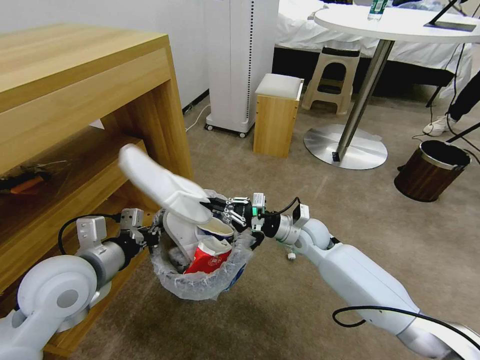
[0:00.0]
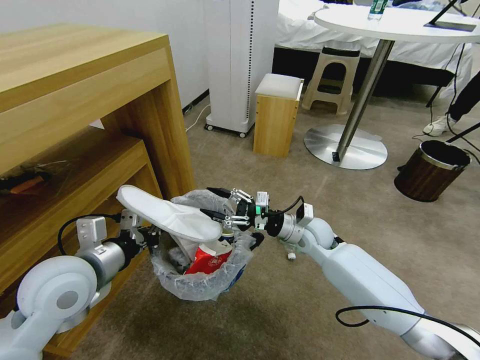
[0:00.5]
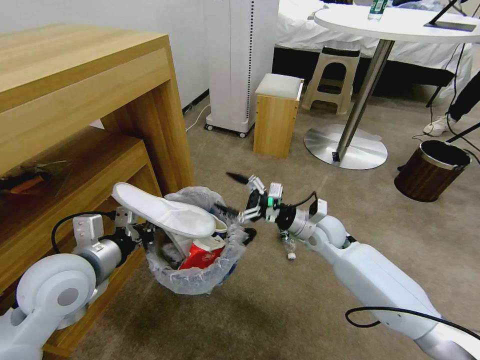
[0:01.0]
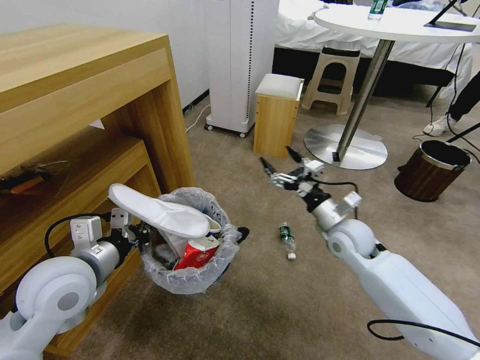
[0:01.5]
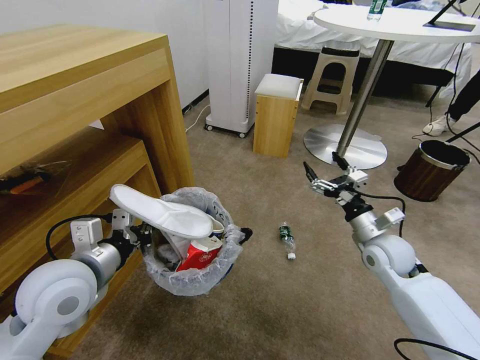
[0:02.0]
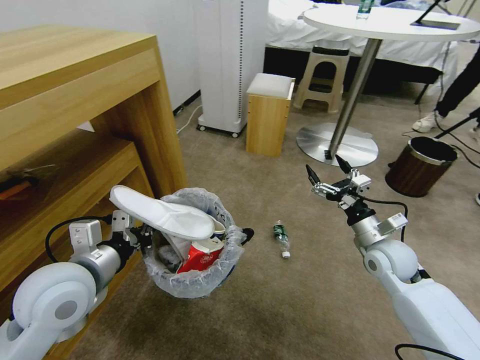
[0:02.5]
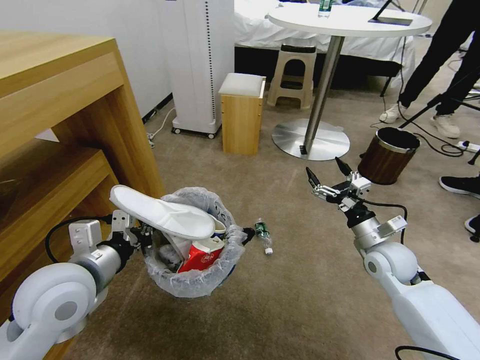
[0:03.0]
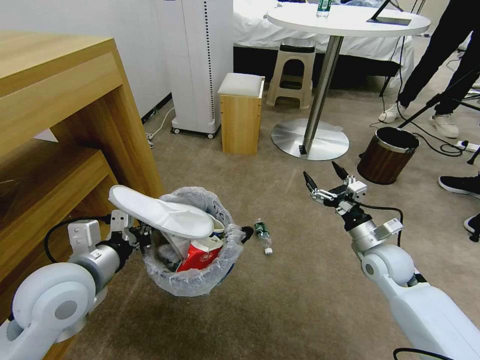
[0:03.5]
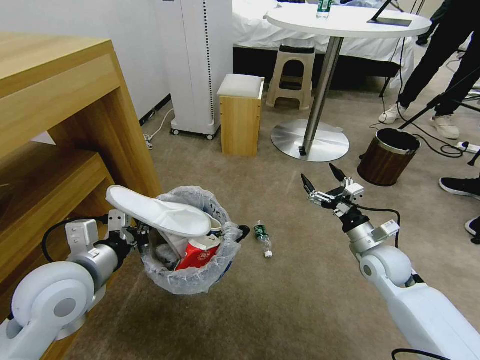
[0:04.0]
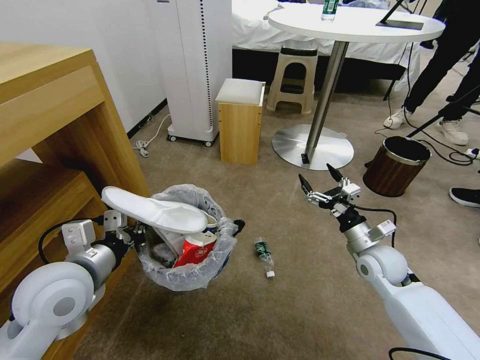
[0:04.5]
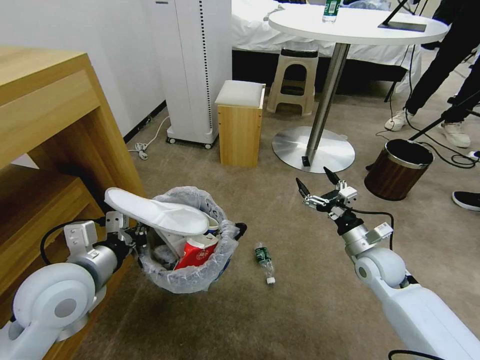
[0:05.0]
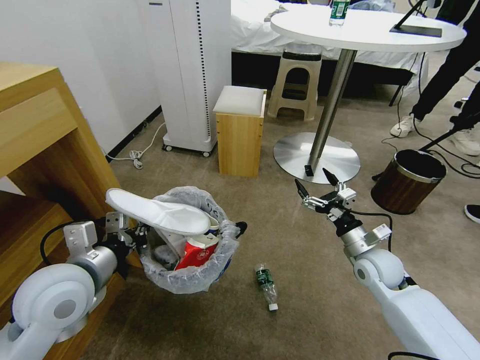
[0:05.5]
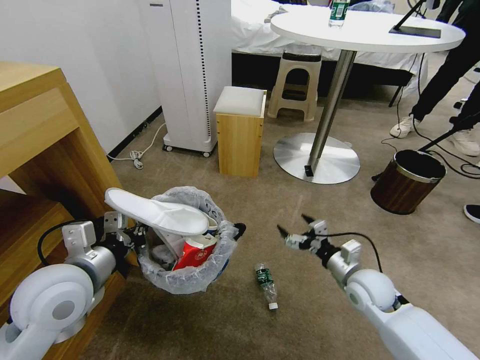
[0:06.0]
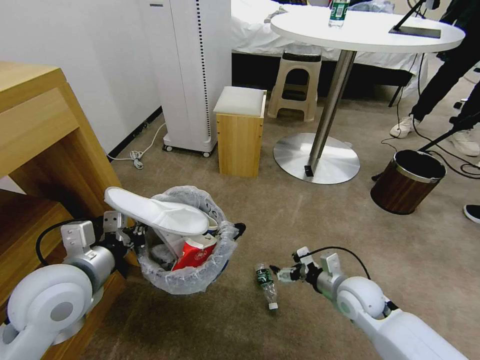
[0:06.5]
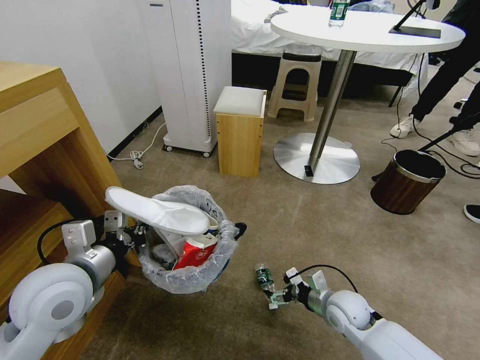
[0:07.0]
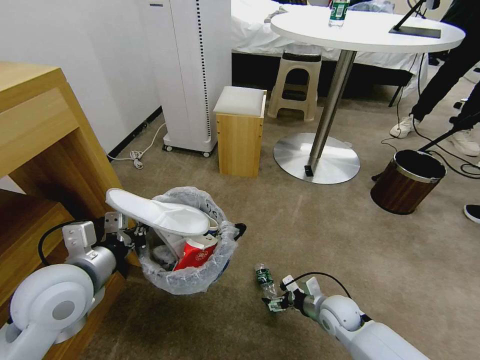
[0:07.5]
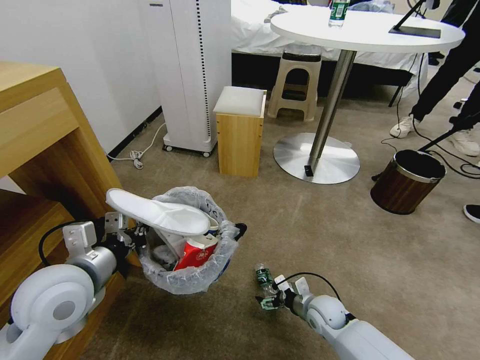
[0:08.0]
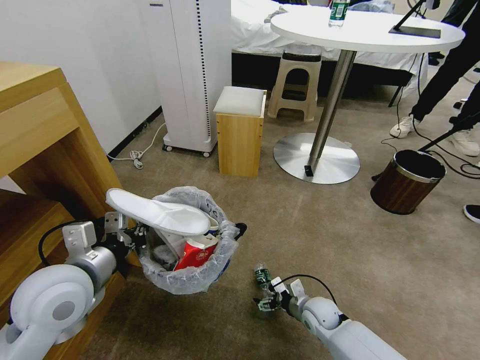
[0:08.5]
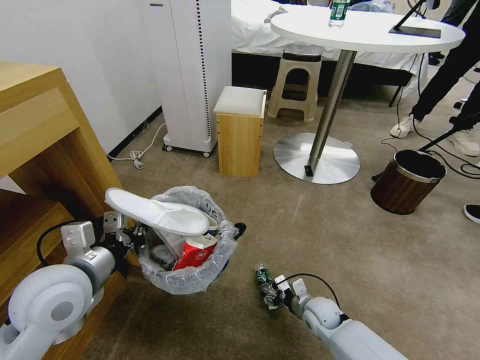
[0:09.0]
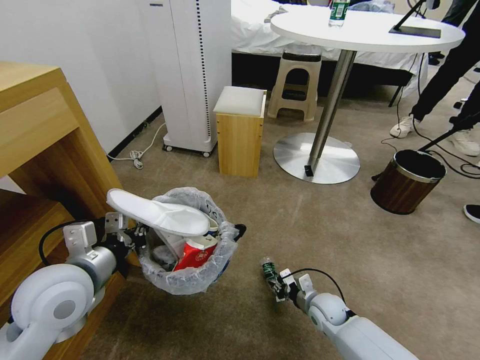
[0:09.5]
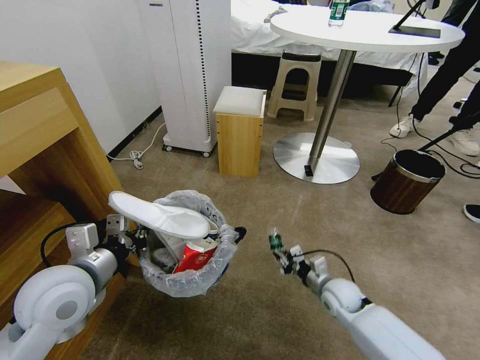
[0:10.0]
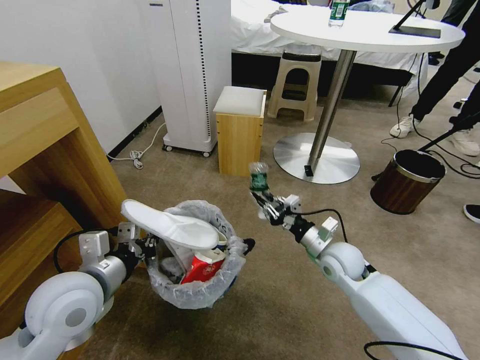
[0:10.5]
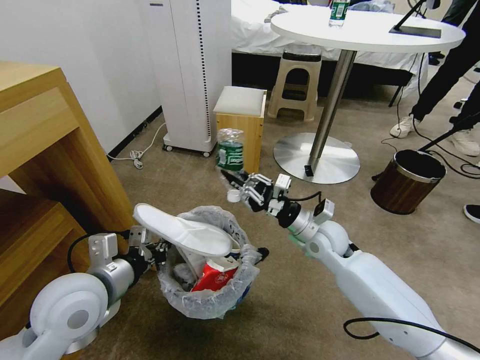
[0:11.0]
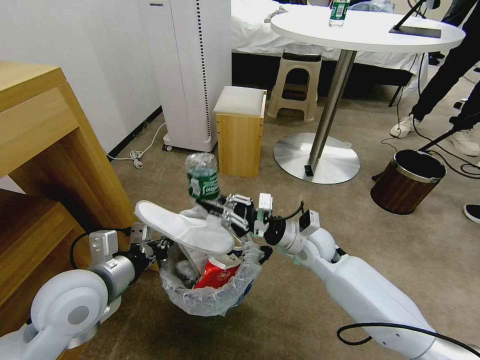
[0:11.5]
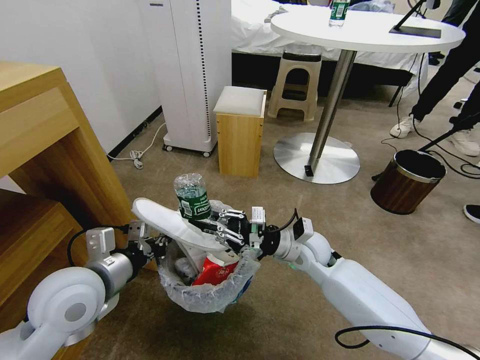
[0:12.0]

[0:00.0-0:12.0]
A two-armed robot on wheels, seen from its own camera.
Task of the whole recording: Pick up the trash bin and place the garbage on the floor into it.
0:00.0 to 0:02.0: The right gripper shifts roughly 15 cm to the right and backward, and opens up.
0:04.0 to 0:06.0: The right gripper ends up roughly 5 cm from where it was.
0:06.0 to 0:08.0: The right gripper heads downward and to the left, covering some 15 cm.
0:08.0 to 0:10.0: The right gripper shifts by approximately 5 cm, and closes.
0:10.0 to 0:12.0: The right gripper is displaced upward and to the left by some 20 cm.

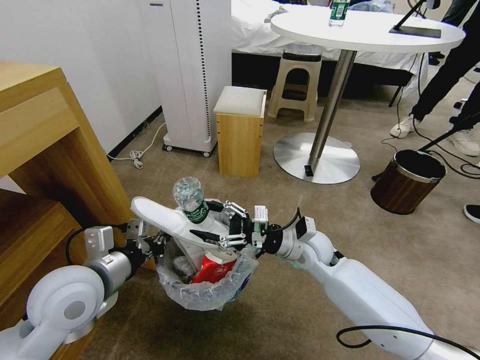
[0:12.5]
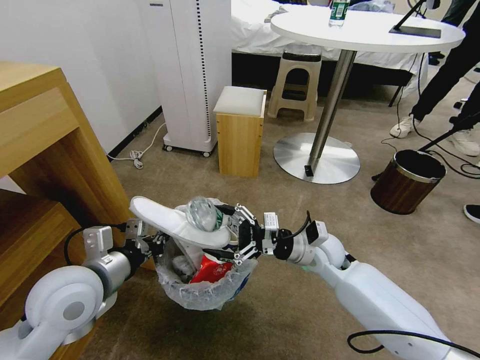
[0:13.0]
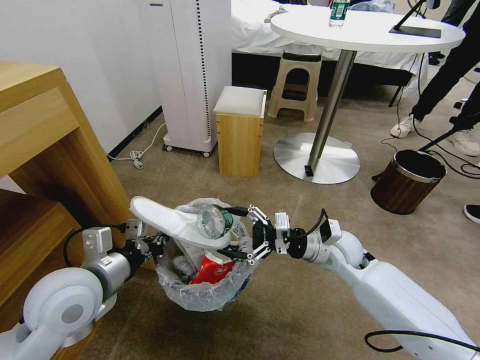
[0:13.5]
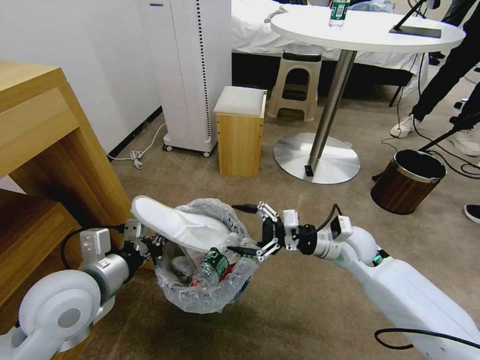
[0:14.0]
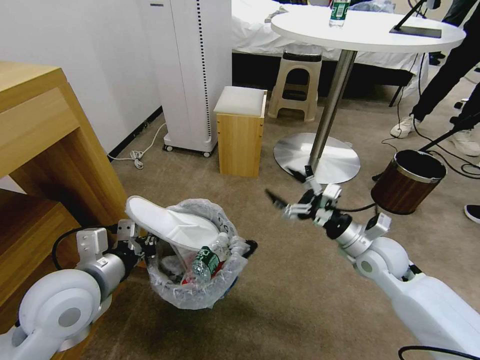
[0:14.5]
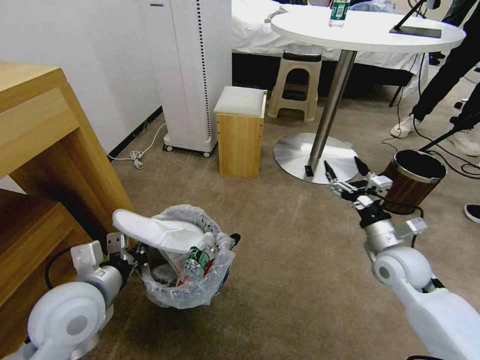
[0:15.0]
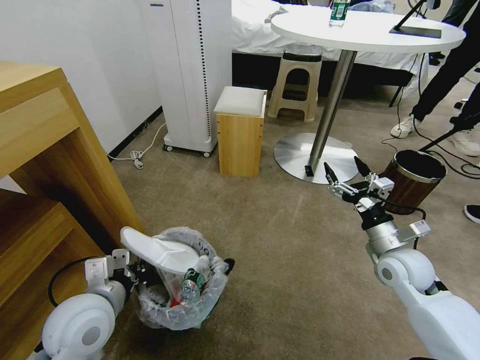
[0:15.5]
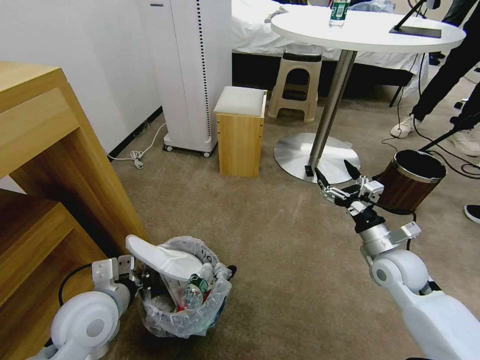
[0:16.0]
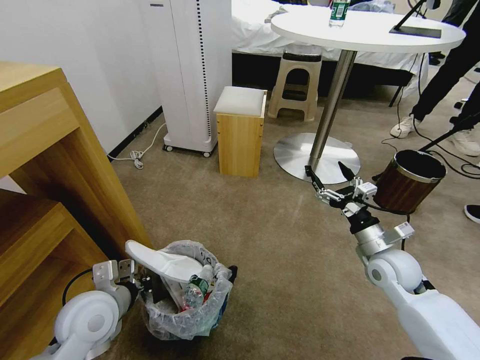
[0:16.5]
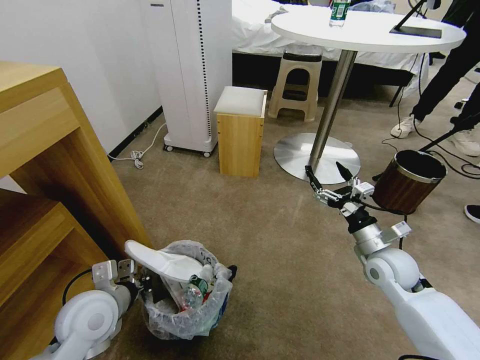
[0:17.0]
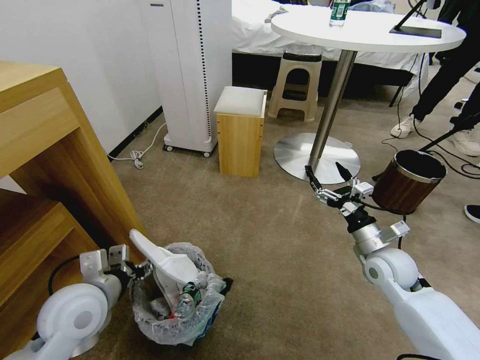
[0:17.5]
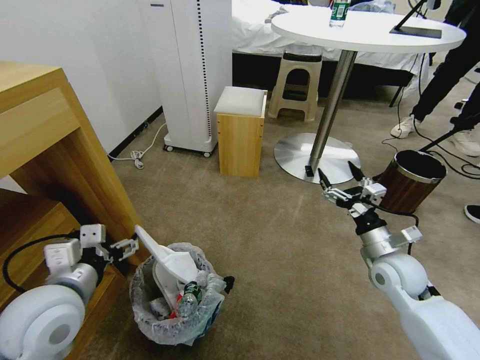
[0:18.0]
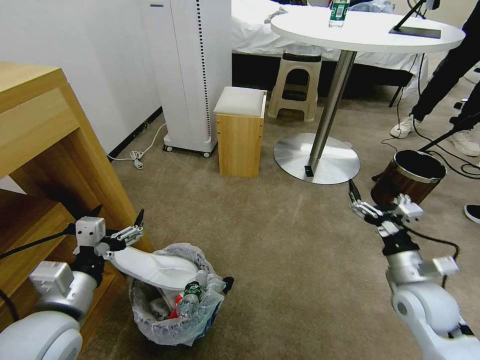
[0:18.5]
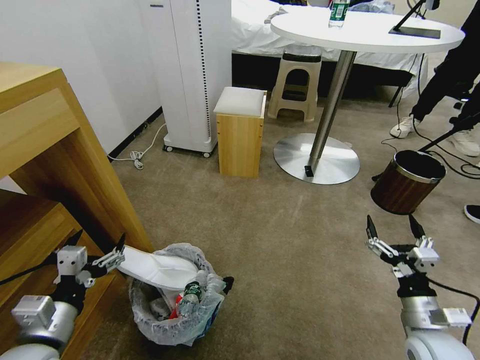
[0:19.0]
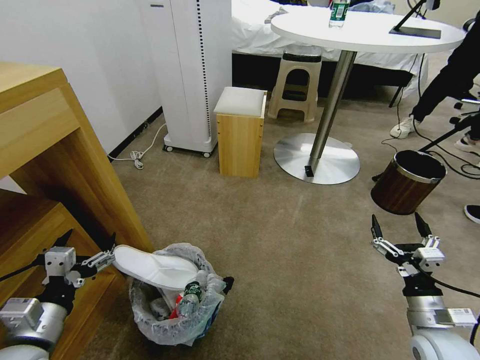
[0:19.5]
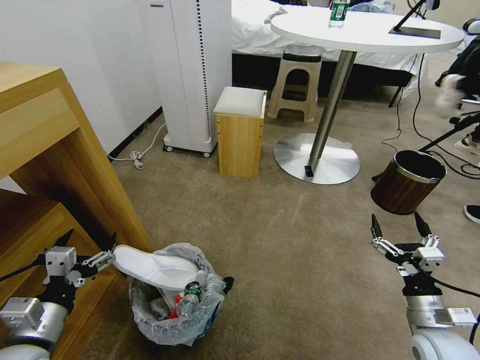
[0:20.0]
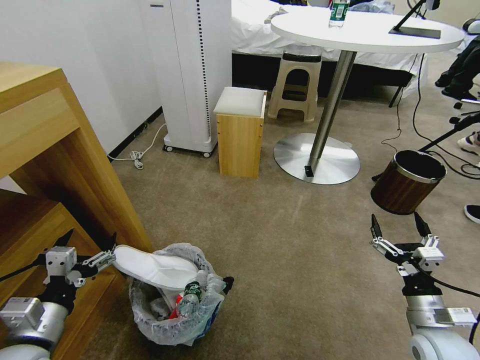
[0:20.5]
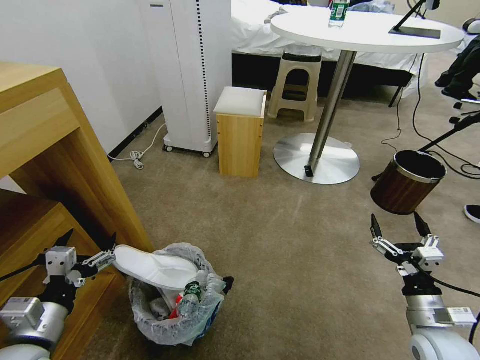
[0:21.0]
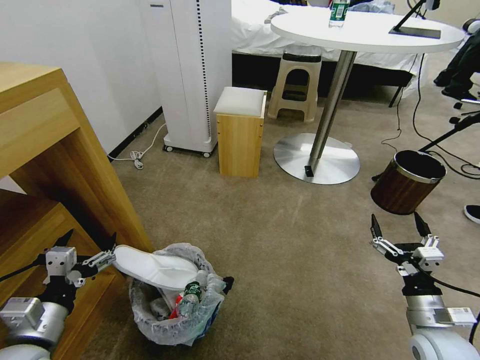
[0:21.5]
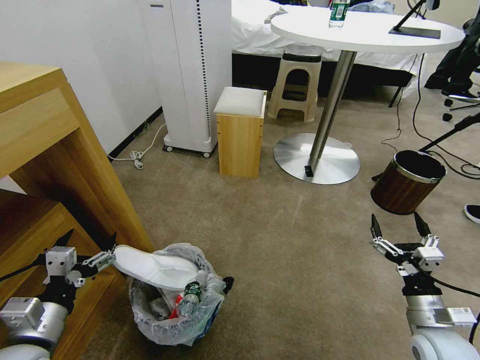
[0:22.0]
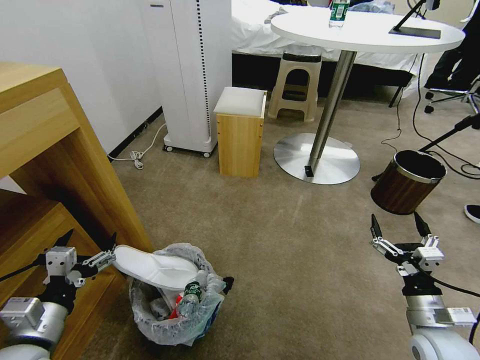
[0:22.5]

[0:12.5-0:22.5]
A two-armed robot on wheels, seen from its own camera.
Task of the whole recording: Pick up the trash bin and place the garbage on the floor into it.
0:12.5 to 0:14.5: The right gripper is displaced to the right by approximately 15 cm.
0:14.5 to 0:16.5: The left gripper moves downward, approximately 10 cm.
0:16.5 to 0:18.5: The left gripper heads upward and backward, covering about 10 cm, and opens its fingers, while the right gripper moves backward, some 5 cm.
0:18.5 to 0:20.5: The left gripper goes roughly 5 cm to the left; the right gripper moves backward and downward, roughly 10 cm.
0:20.5 to 0:22.5: The two grippers keep their place.
